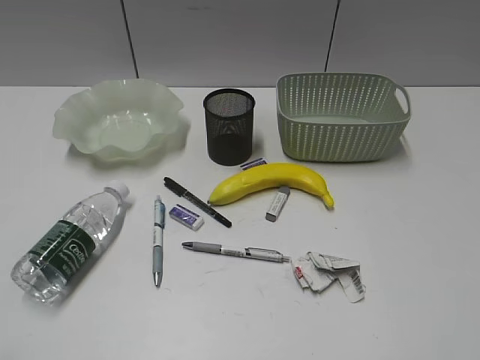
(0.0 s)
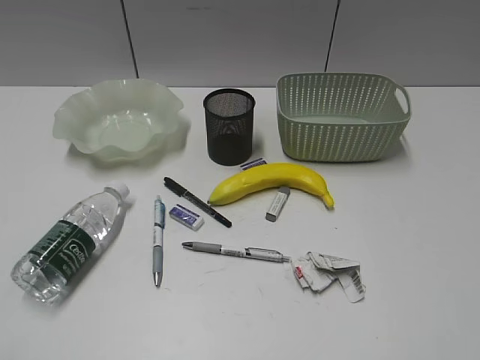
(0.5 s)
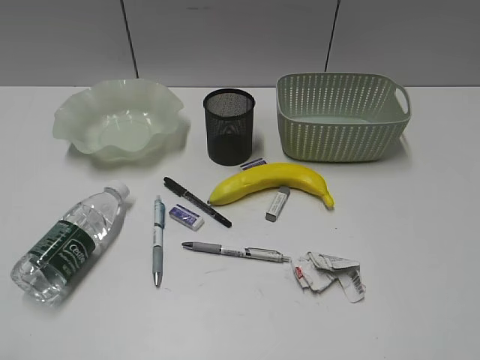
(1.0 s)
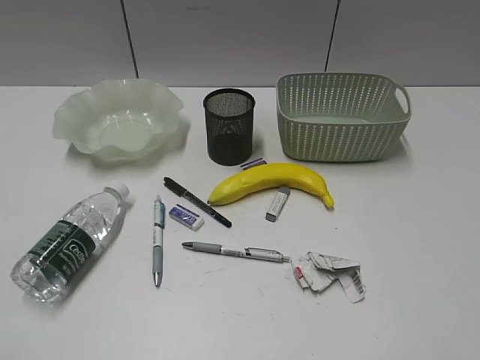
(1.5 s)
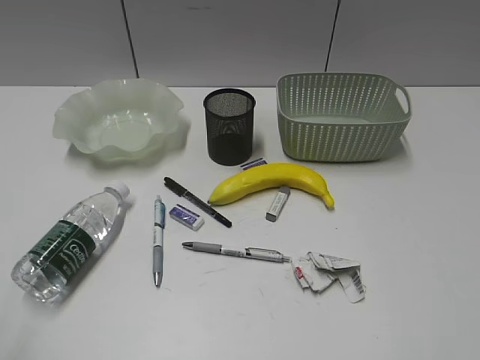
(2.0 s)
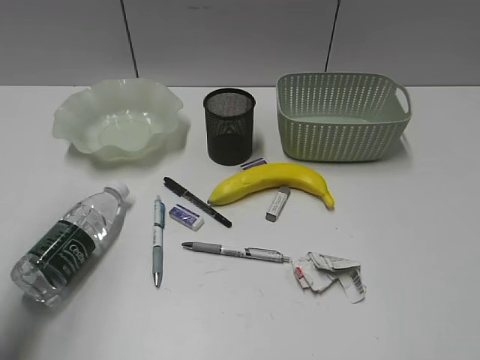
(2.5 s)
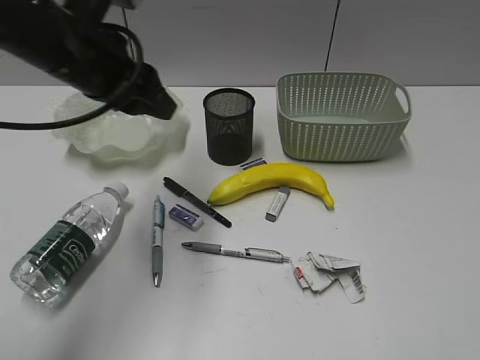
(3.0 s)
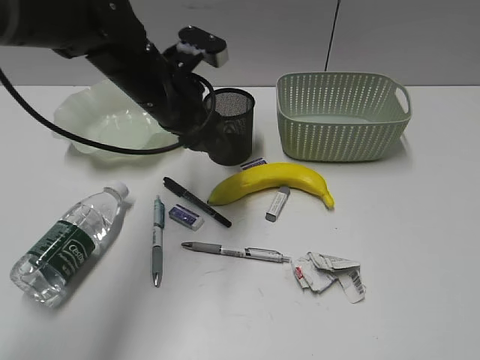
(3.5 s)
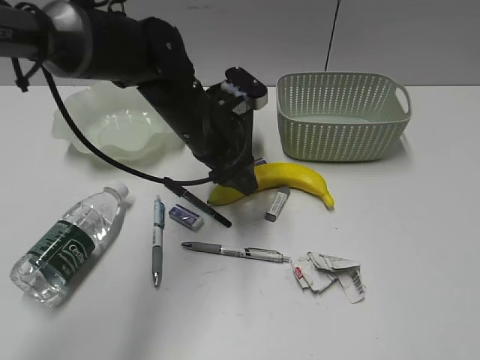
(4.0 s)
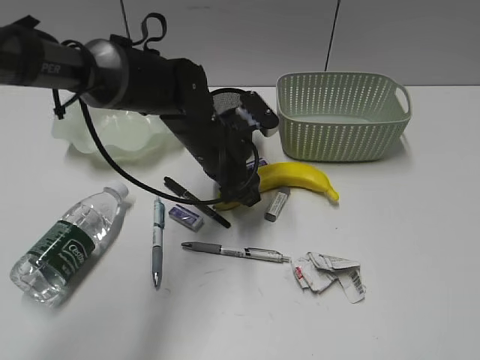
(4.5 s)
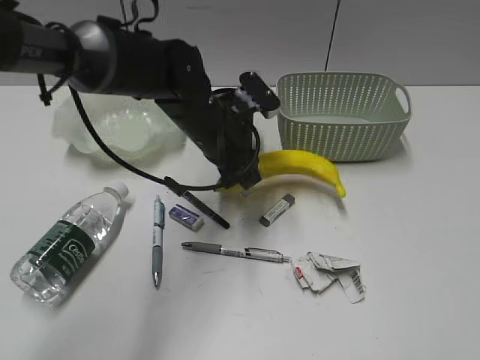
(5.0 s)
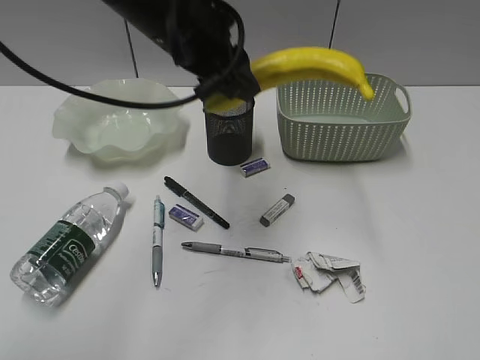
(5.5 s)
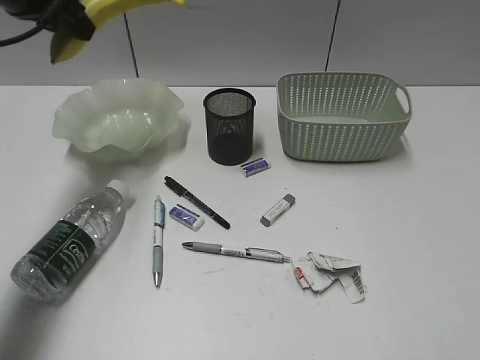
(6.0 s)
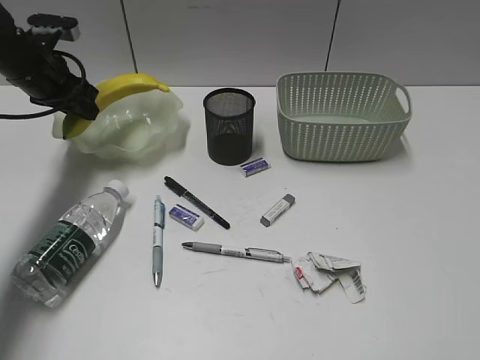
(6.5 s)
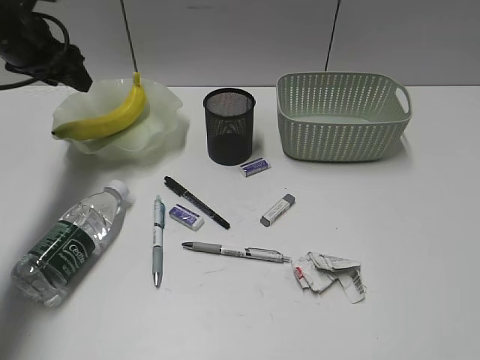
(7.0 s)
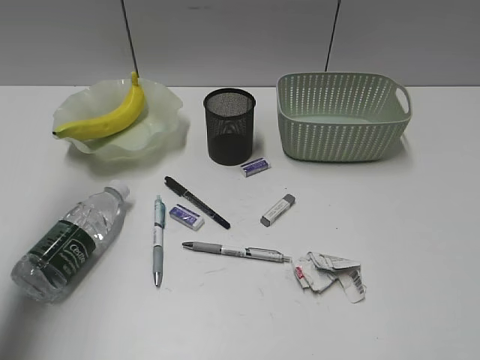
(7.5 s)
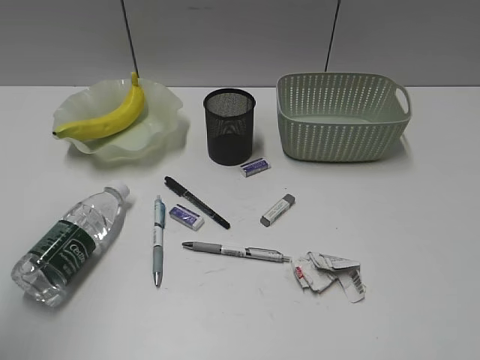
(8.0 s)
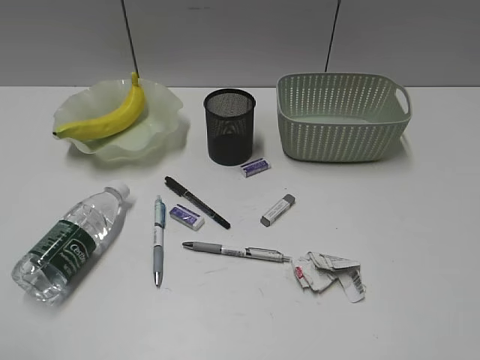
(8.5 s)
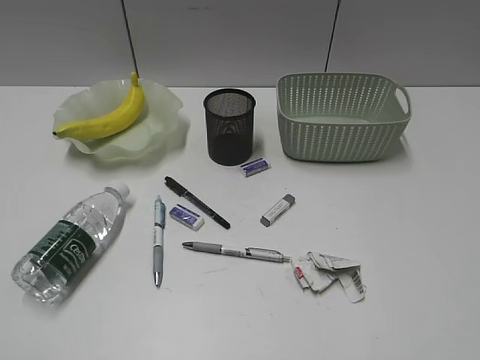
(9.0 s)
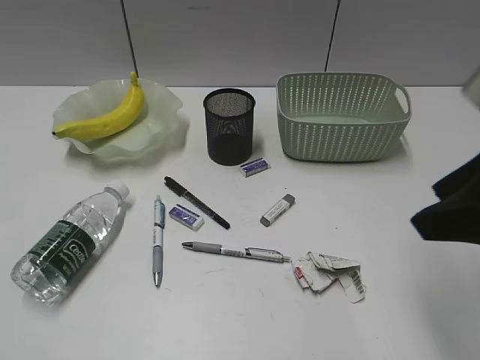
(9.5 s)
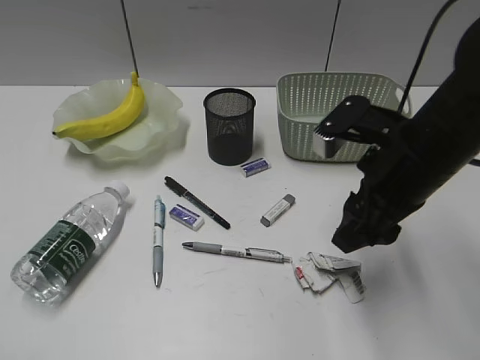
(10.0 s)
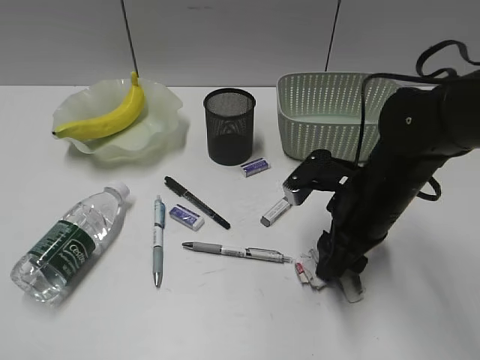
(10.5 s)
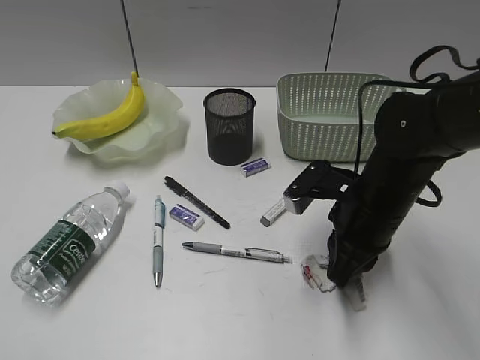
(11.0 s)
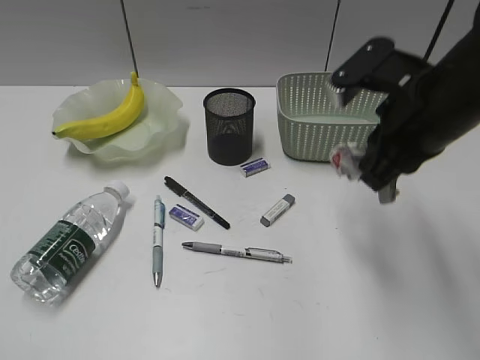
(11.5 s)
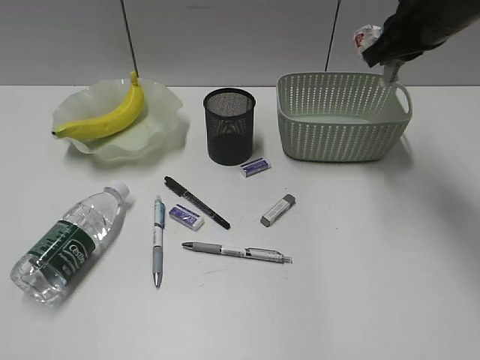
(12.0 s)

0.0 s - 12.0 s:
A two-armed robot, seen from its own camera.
Step, 2.0 s - 4.5 s: Grasp the banana with left gripper.
Step, 5.0 s - 6.5 s: Place the banana in the plate with left gripper.
Step, 7.0 s - 11.0 s: Grasp the waste paper with right gripper.
2.0 s - 4.0 s: The left gripper travels forward, to the right and downward by some 50 cm, and opens its fingers.
4.0 s - 6.0 s: The left gripper is displaced to the left and upward by approximately 25 cm, and closes up.
6.0 s - 8.0 s: The left gripper goes roughly 30 cm backward and upward.
8.0 s - 10.0 s: The left gripper travels downward and backward by some 20 cm, while the right gripper travels forward and to the left by approximately 30 cm.
10.0 s - 12.0 s: The right gripper heads forward and upward, covering roughly 15 cm, and closes its fingers.

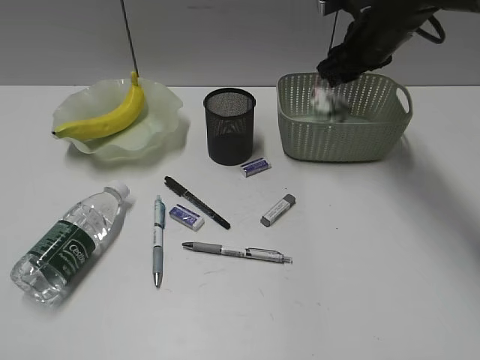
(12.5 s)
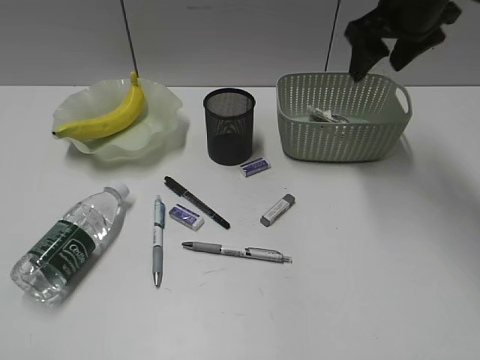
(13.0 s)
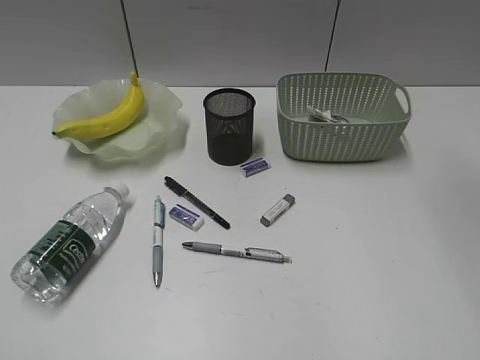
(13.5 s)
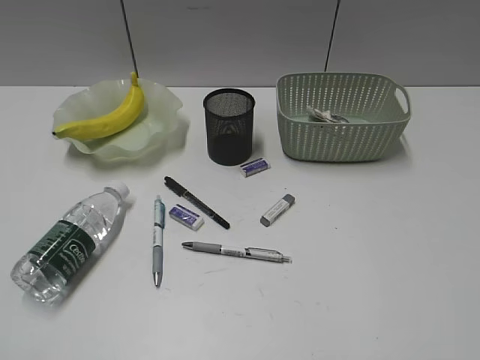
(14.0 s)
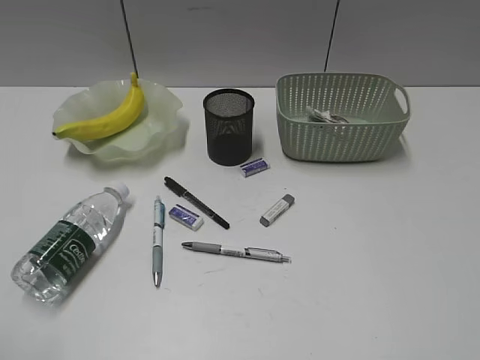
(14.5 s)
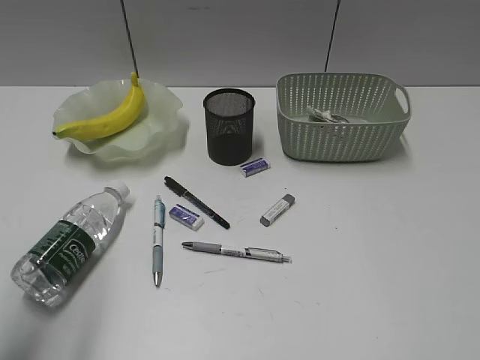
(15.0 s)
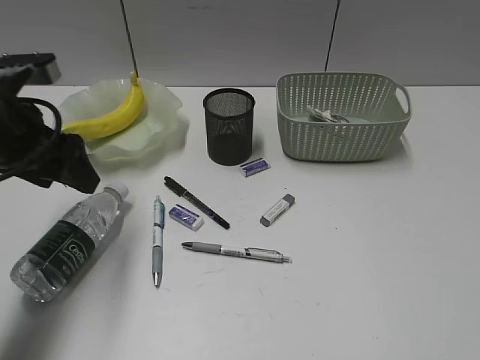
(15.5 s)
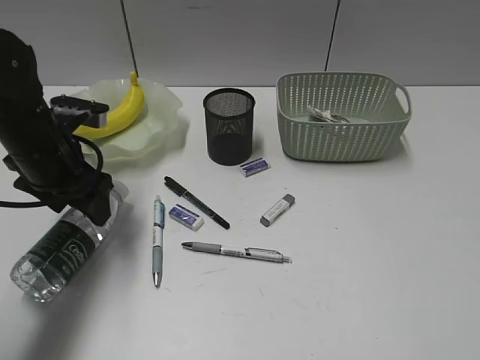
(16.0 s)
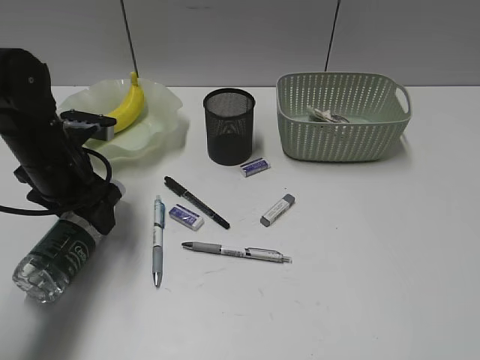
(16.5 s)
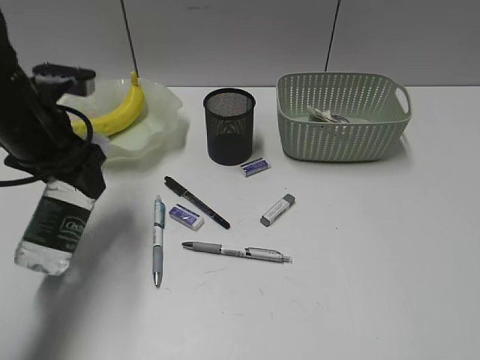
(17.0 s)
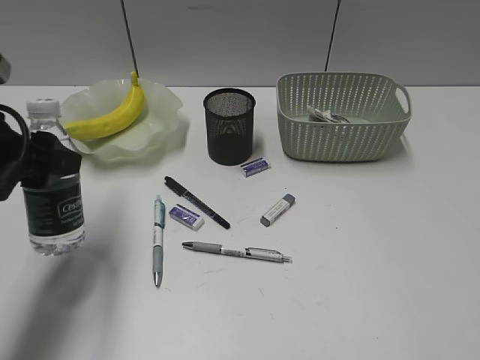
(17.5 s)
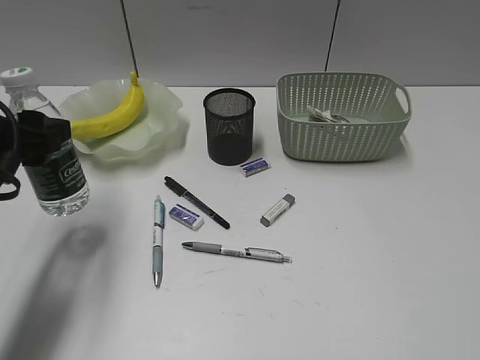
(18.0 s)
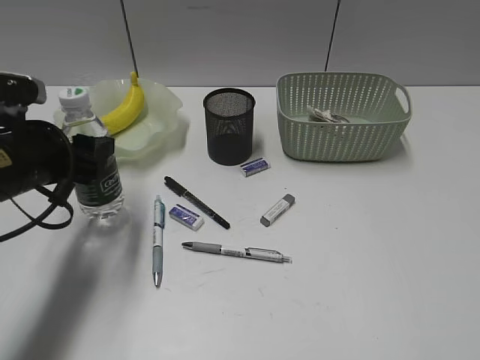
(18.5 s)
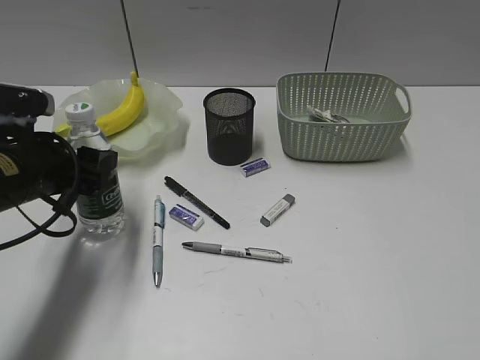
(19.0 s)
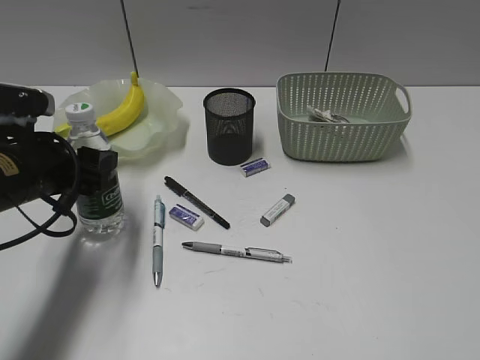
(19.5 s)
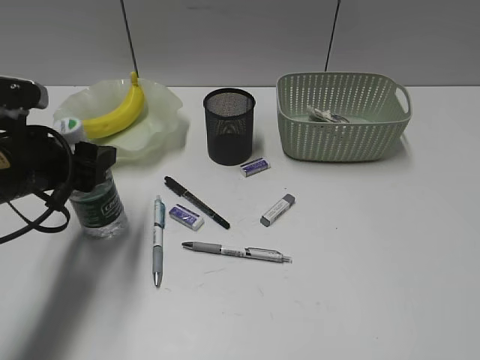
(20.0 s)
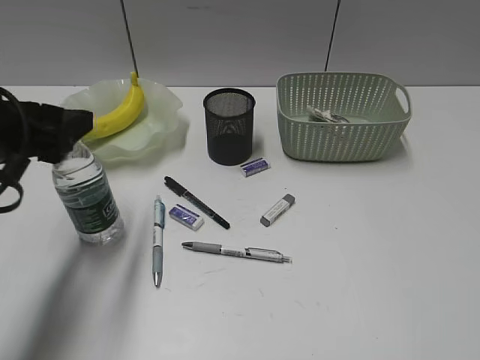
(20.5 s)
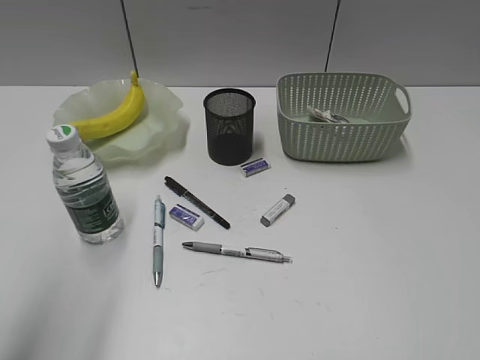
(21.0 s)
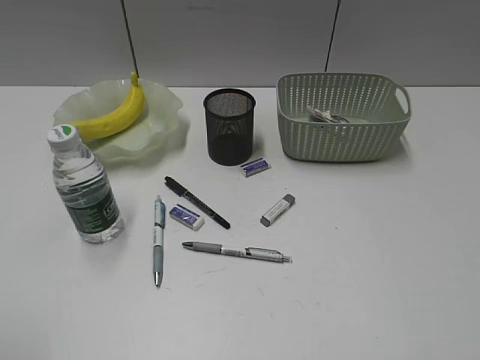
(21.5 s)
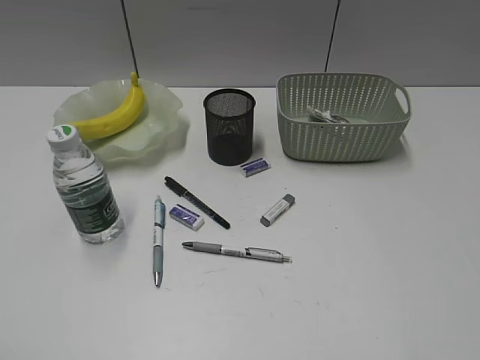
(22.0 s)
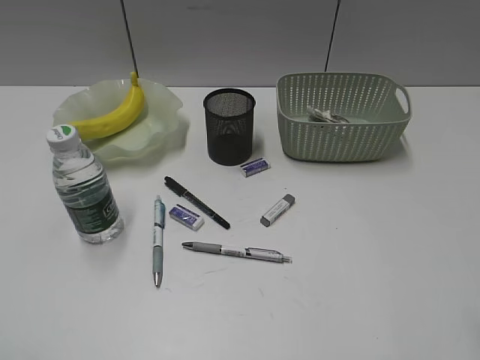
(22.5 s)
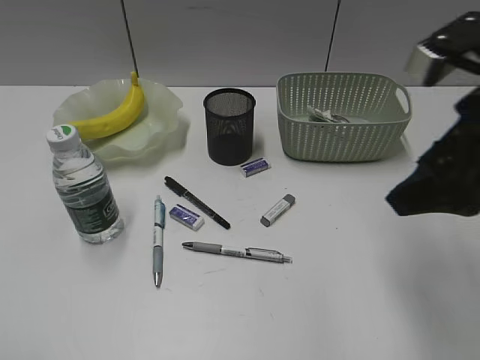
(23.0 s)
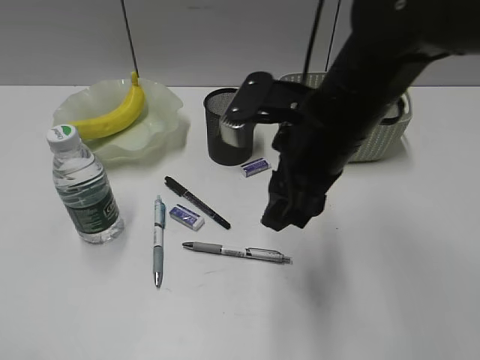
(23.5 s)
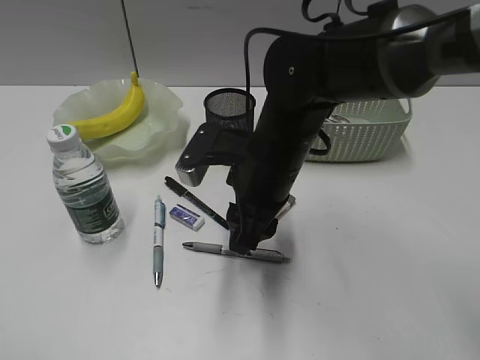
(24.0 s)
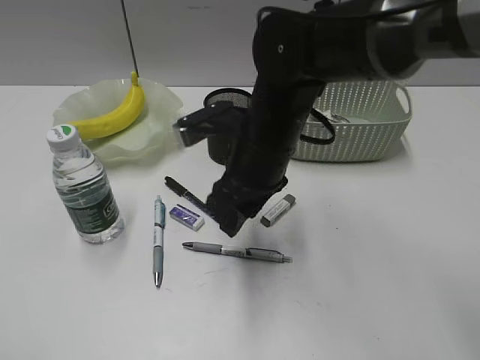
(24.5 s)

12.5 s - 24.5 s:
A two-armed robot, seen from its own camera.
Step, 13.0 s - 16.0 s: Grasp the bottle with left gripper.
Step, 16.5 s - 20.5 s: Stand the bottle with left gripper.
12.5 s - 14.5 s: The right gripper moves backward, some 50 cm, and opens its fingers.
14.5 s - 16.5 s: The left gripper goes some 35 cm forward and downward.
16.5 s - 18.5 s: The left gripper is displaced backward by approximately 5 cm.
18.5 s - 20.5 s: The left gripper is displaced upward by approximately 5 cm.
20.5 s - 22.5 s: The left gripper goes some 25 cm backward.
22.5 s - 24.5 s: The right gripper is displaced to the left, forward and downward by some 35 cm, and closes up.

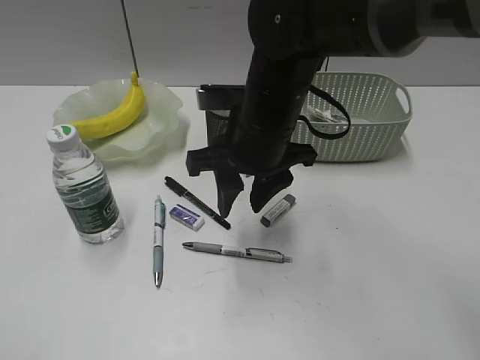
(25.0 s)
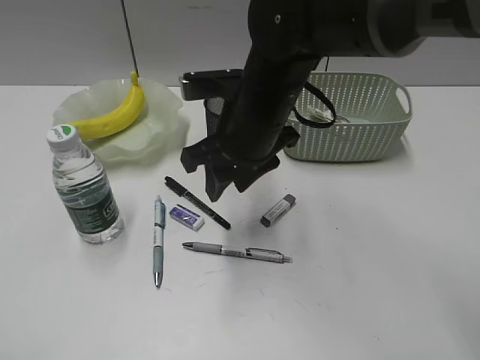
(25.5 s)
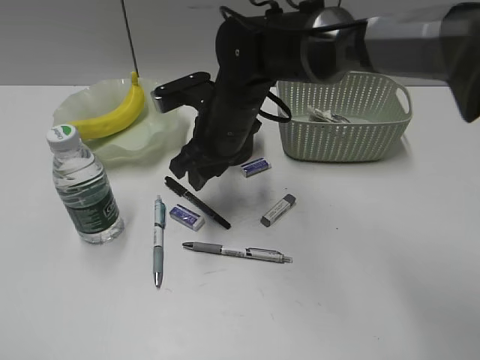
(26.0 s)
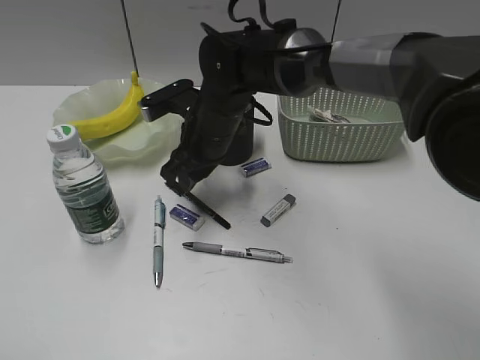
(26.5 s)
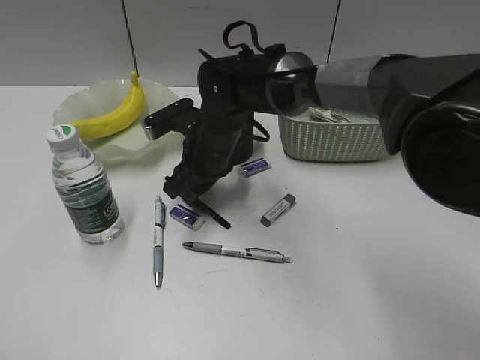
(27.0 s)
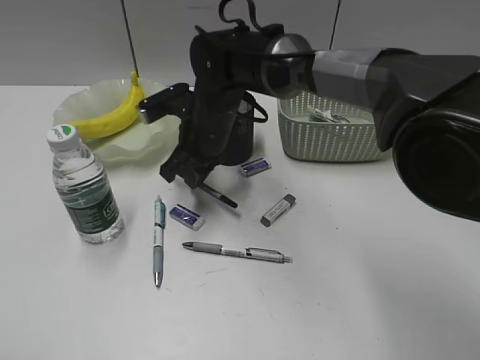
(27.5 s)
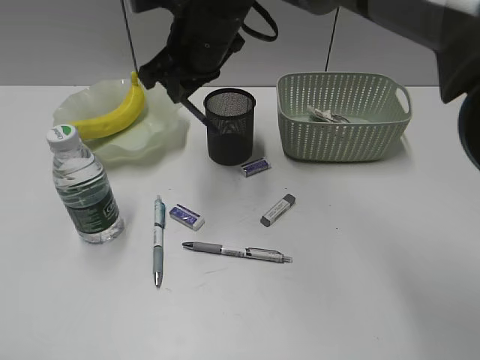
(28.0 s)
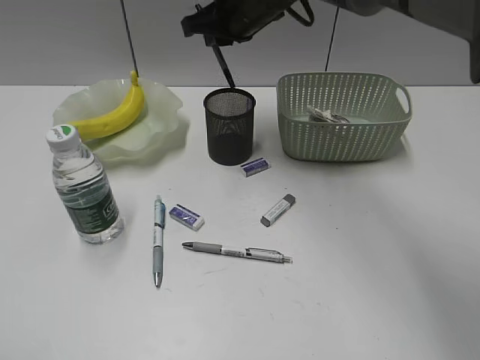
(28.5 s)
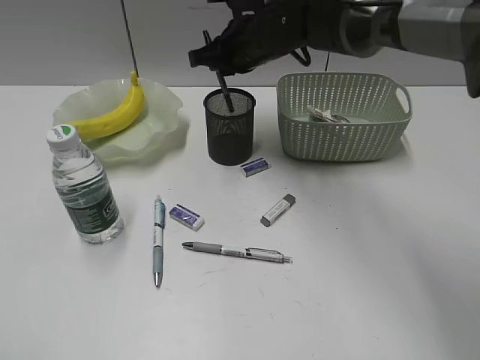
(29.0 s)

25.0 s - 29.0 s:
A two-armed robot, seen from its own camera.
Step, 25.0 s - 27.0 s: Grasp the black pen with right gripper.
25.0 s - 27.0 s: The right gripper moves downward, forward and to the left, approximately 15 cm.
27.0 s - 29.0 s: The right gripper travels upward, forward and to the right by roughly 15 cm, and closes.
